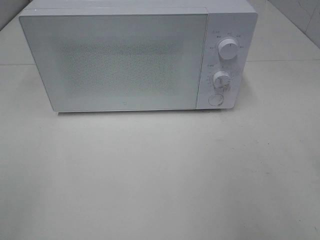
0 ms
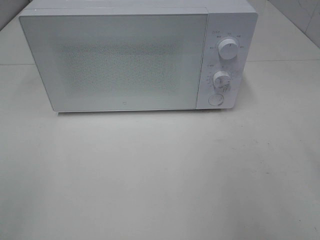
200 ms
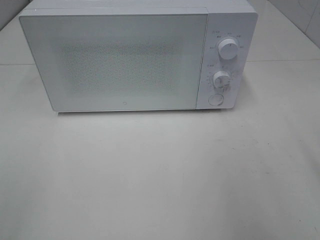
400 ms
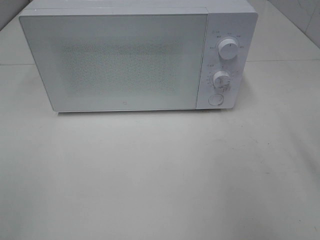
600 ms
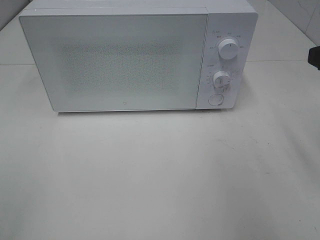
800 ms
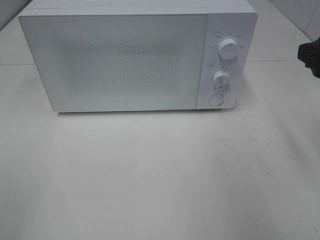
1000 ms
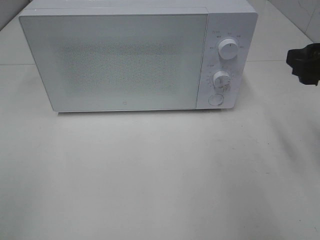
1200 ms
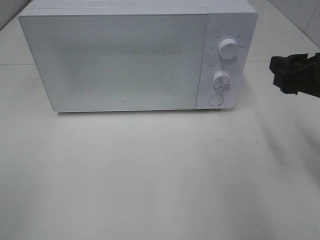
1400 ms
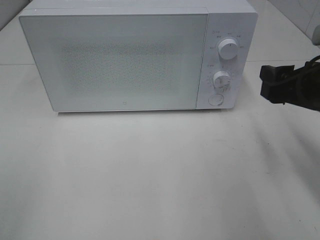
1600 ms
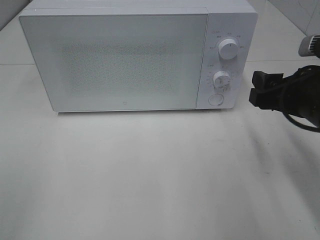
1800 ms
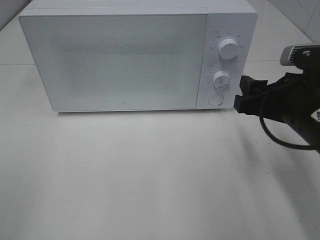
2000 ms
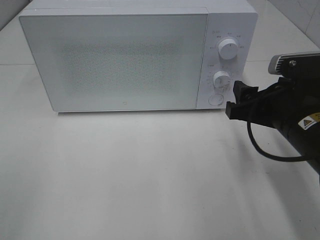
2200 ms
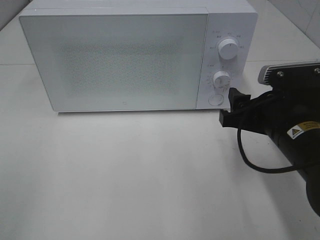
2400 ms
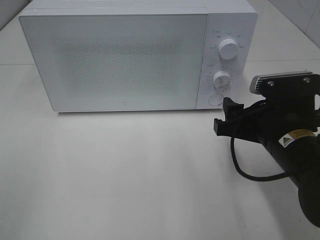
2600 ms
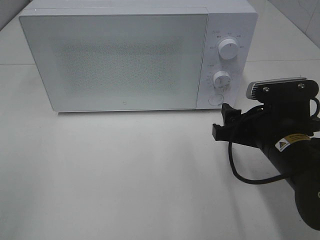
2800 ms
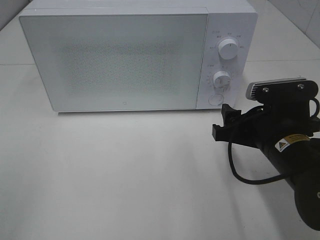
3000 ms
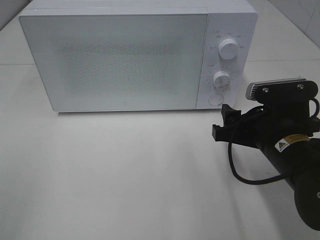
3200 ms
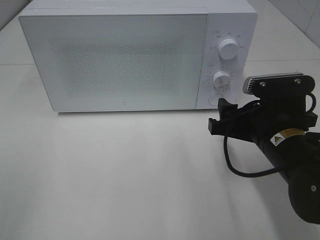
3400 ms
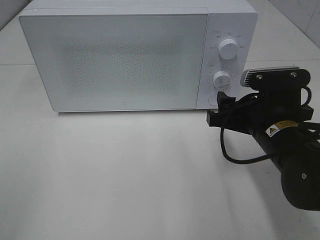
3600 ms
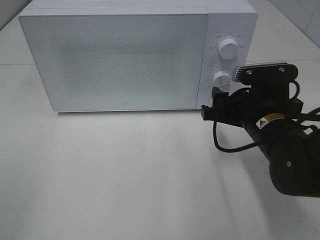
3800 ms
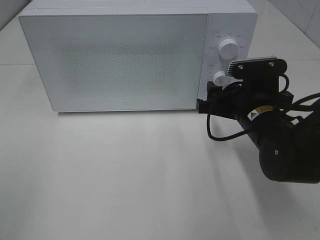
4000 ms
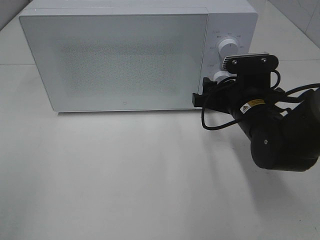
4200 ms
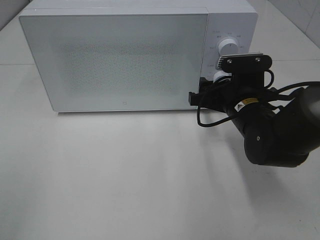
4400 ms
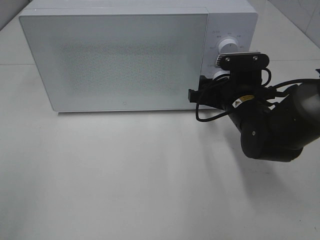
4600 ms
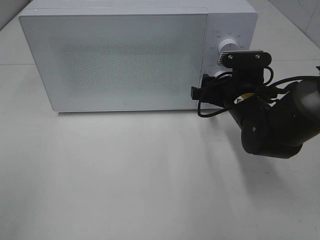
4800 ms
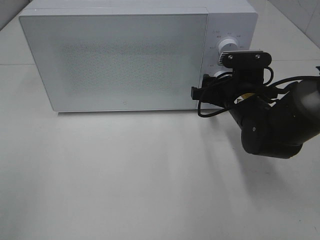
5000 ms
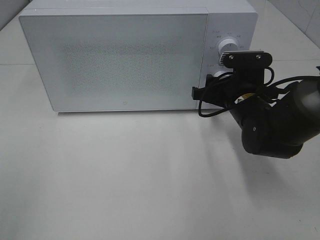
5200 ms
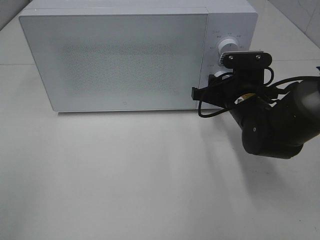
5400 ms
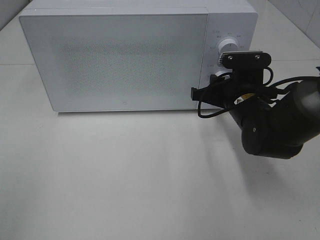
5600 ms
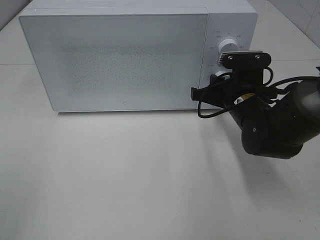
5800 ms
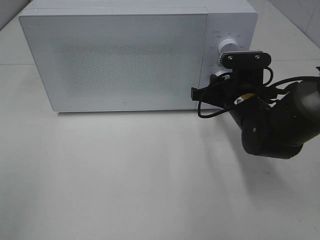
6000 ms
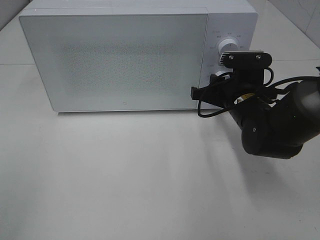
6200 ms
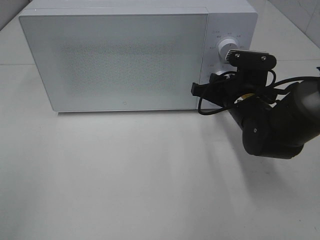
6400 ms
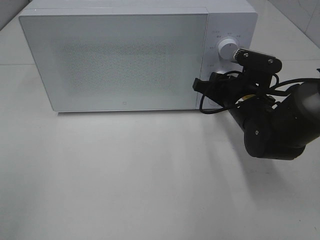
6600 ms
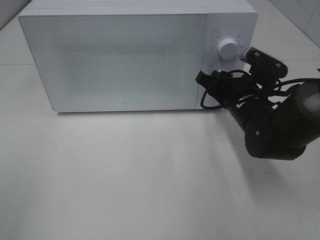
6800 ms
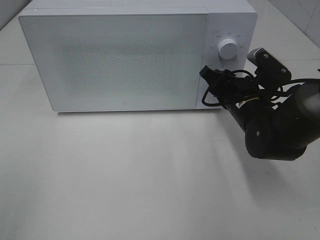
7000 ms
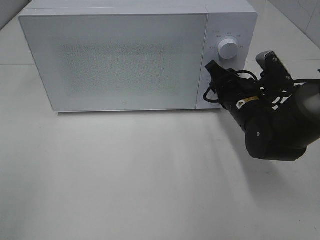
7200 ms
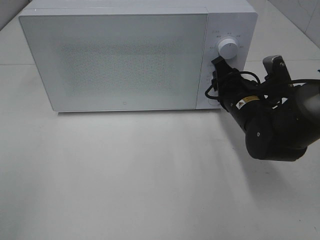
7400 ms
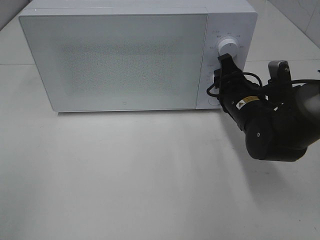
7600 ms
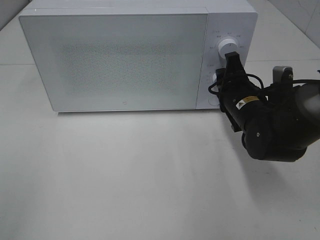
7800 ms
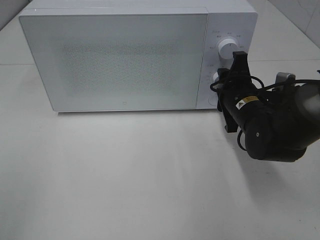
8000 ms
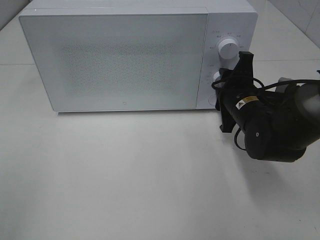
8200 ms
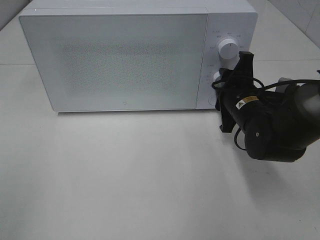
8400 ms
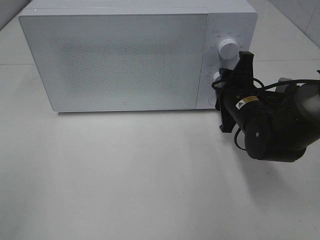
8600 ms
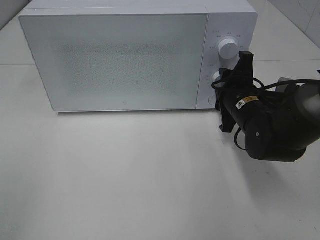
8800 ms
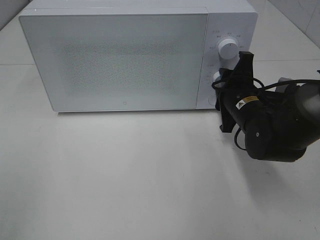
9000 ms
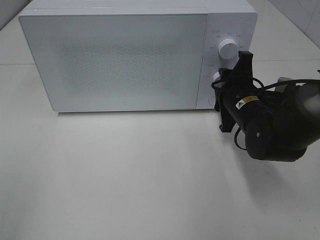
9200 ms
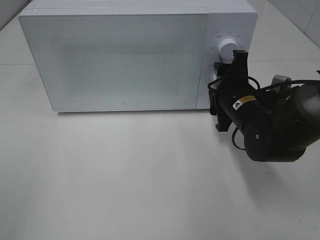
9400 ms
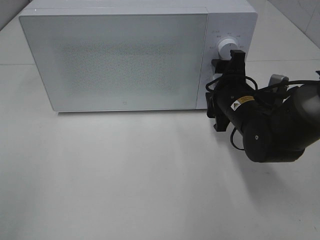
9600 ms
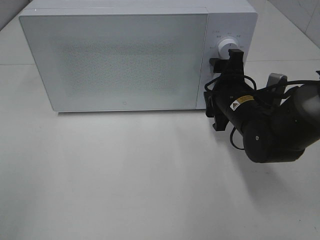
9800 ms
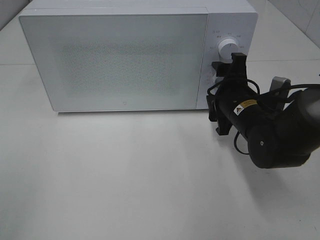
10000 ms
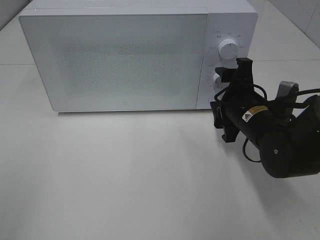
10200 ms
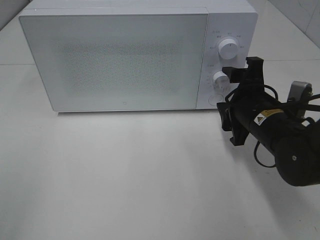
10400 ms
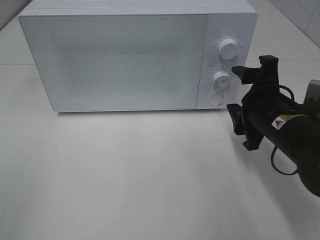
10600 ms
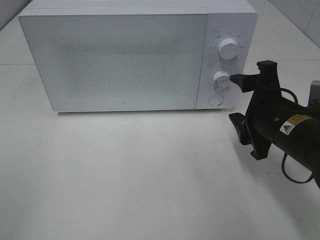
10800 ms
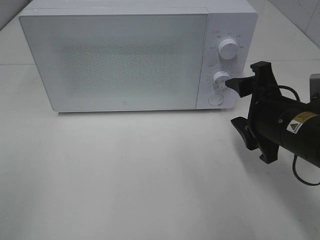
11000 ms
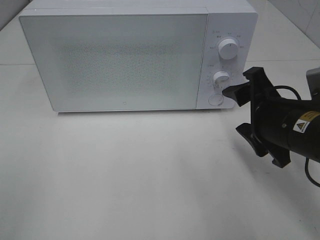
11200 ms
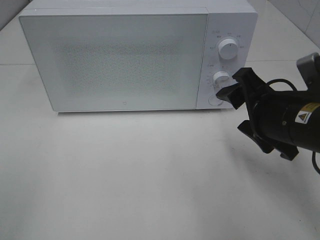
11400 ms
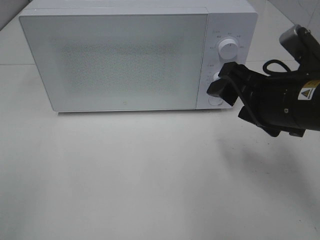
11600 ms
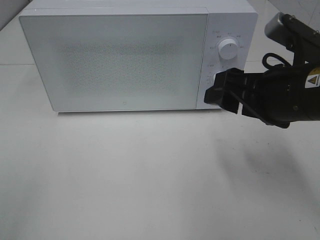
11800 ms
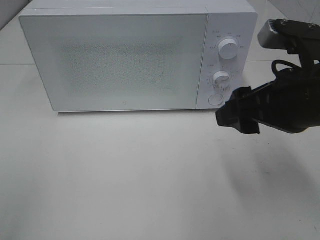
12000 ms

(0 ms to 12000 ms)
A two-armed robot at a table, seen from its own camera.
Task of the whole recording: Heat Sandwich.
Step, 0 ms - 10200 ms: Right hand: twist timer button.
0 ms - 1600 ms: The right gripper heads forward and downward, covering about 15 cm.
1600 ms - 3000 ms: The right gripper is displaced downward and to the left by some 10 cm.
3000 ms - 4400 ms: The right gripper travels forward by roughly 10 cm.
4400 ms - 6000 ms: The grippers stay close to where they were, moving slightly.
9000 ms - 10400 ms: The right gripper shifts by roughly 5 cm.
10400 ms - 12000 ms: The right gripper heads upward and backward, covering about 15 cm.

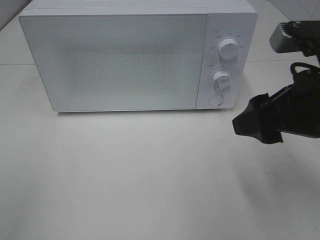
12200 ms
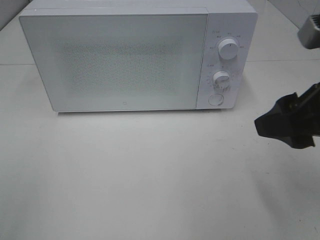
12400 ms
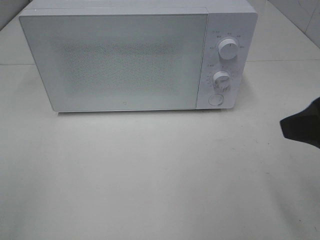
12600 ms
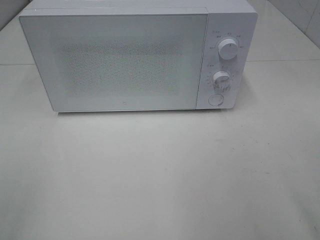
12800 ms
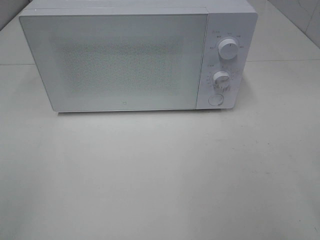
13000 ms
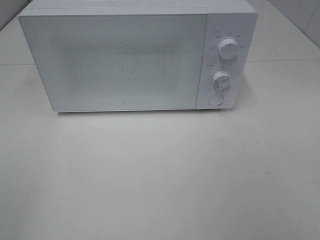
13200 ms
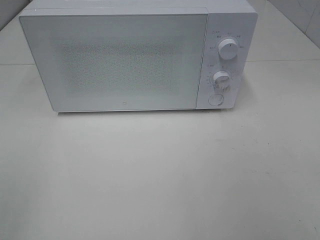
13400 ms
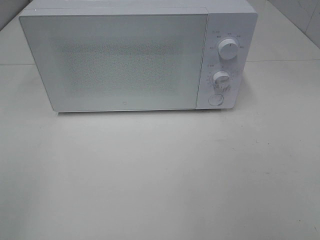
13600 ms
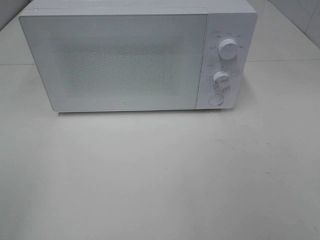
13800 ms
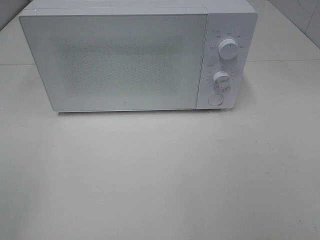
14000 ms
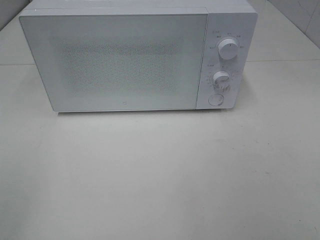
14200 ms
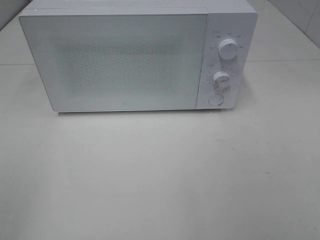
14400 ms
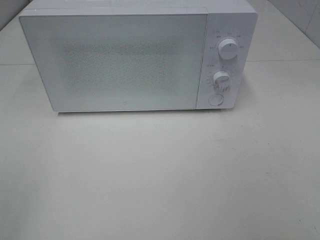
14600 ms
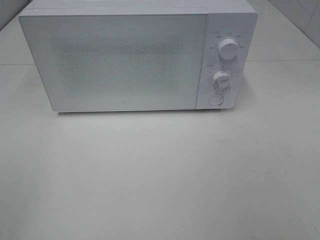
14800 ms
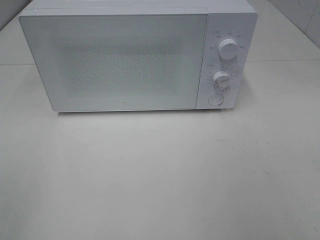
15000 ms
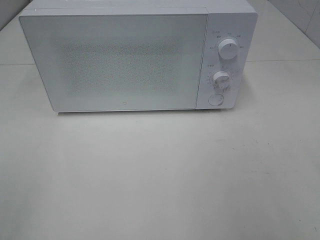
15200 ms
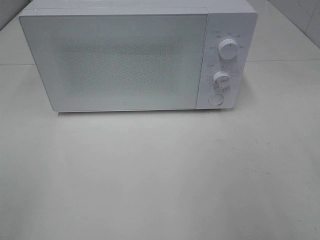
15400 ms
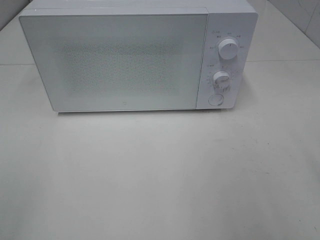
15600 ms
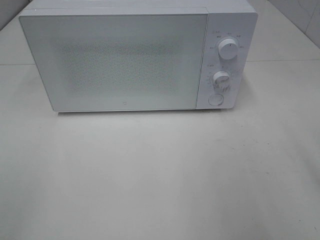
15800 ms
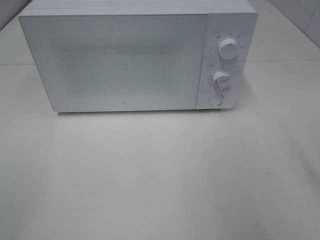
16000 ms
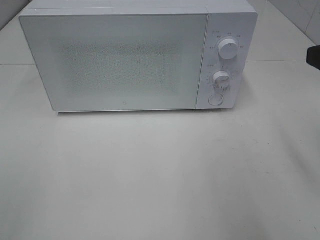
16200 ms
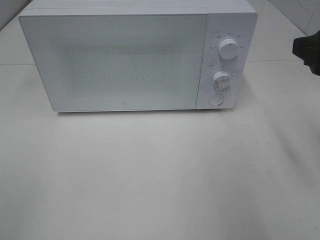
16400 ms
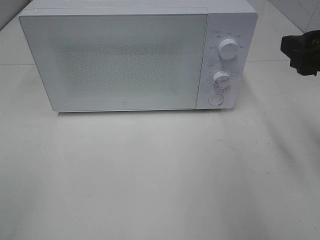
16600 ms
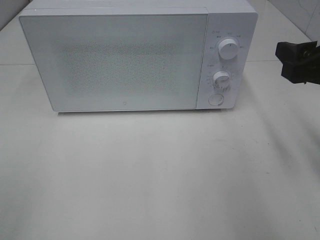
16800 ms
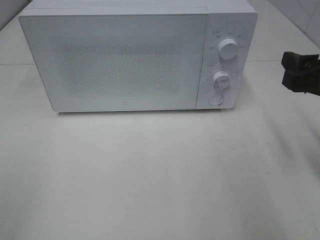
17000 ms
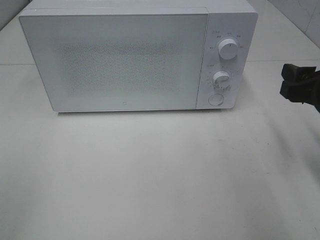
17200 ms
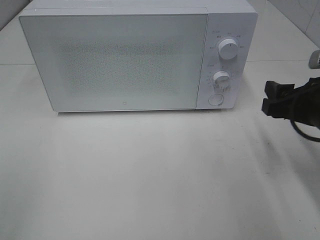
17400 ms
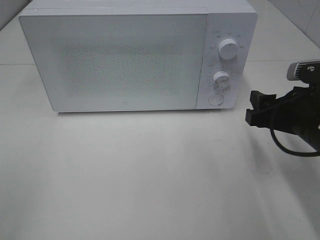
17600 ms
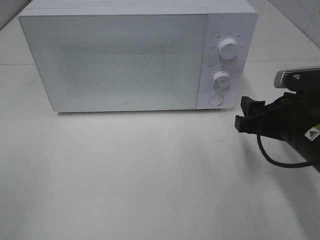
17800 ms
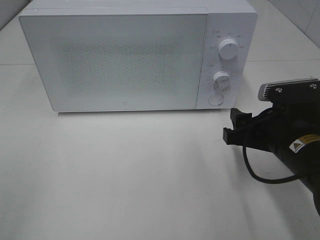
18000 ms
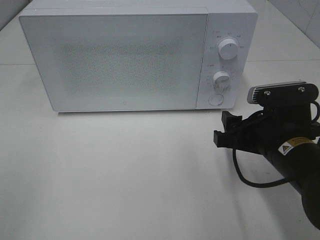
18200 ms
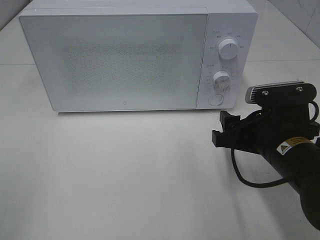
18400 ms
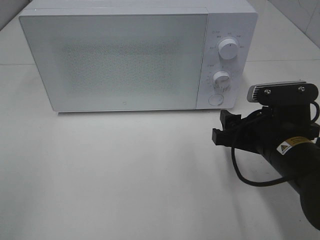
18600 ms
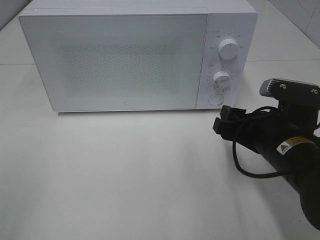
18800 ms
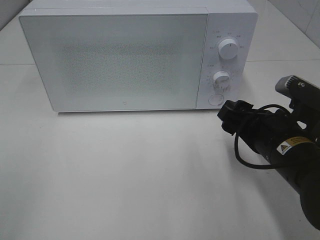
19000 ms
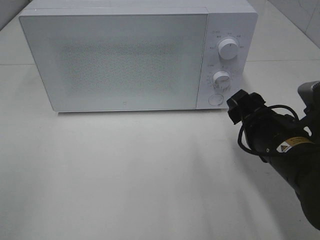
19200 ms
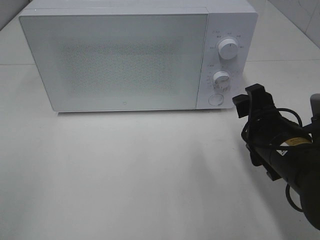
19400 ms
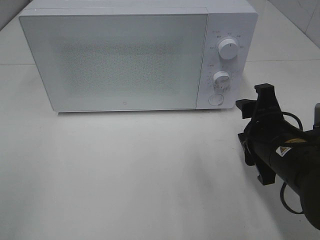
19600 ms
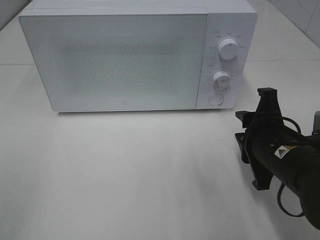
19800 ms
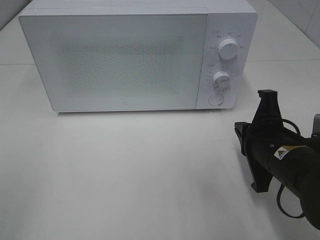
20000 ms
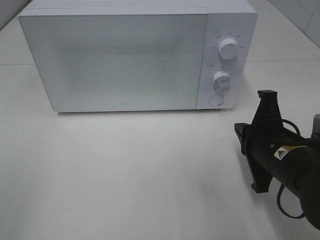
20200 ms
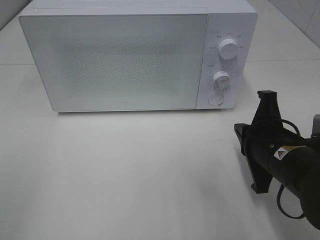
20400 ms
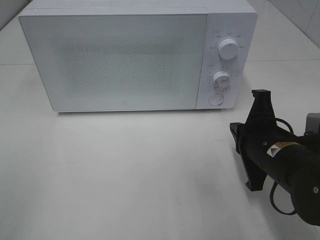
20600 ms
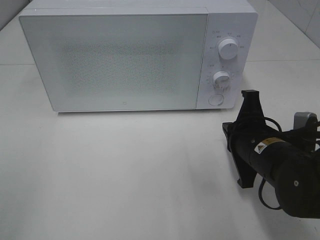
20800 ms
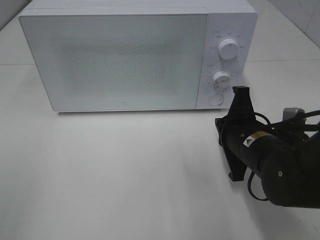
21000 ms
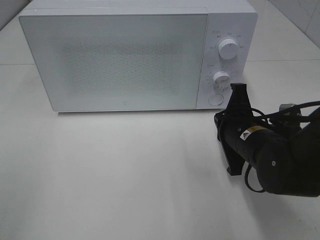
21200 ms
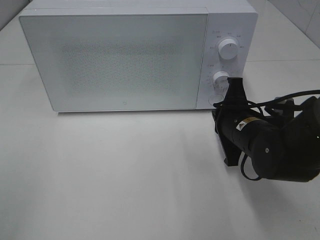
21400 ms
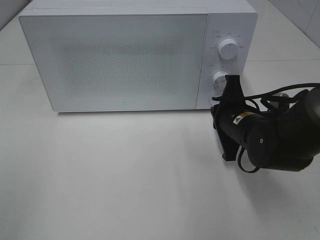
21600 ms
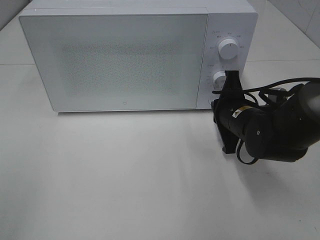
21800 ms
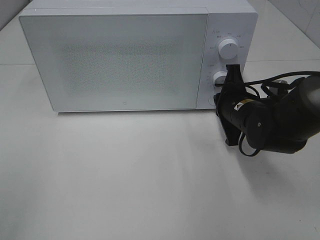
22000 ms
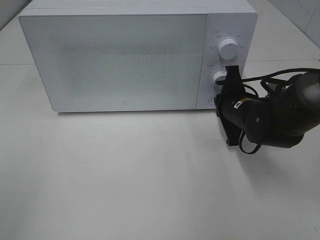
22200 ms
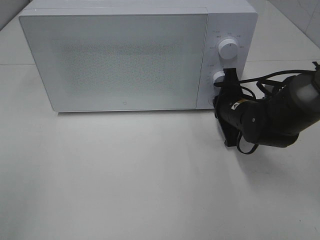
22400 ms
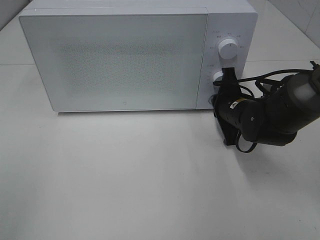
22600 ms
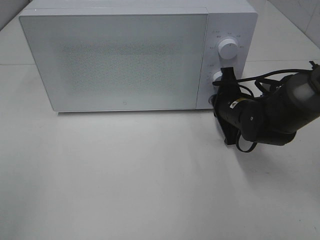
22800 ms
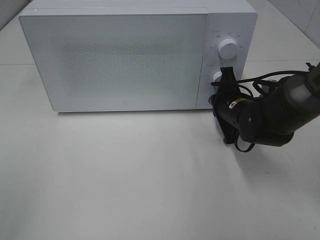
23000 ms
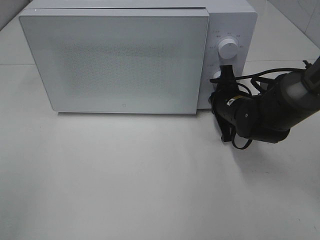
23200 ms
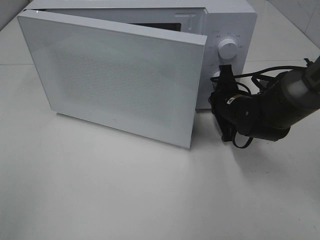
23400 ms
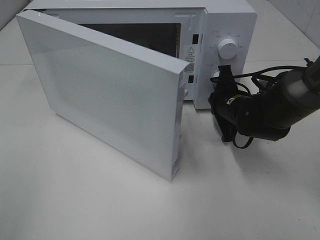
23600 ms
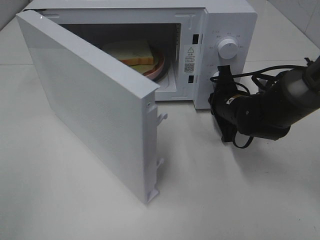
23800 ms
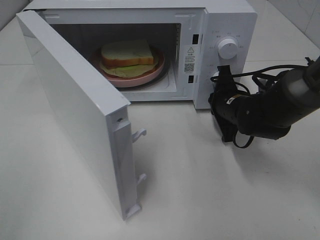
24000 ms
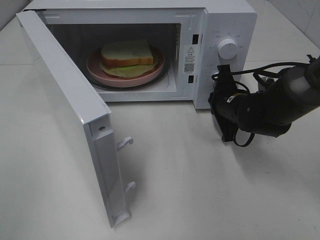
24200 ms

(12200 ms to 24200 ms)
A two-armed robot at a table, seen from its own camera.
Task of the whole recording: Heat Sandwich.
12200 ms - 13800 ms: The right gripper travels backward and to the right by about 20 cm.
15200 ms - 16600 ms: The right gripper goes approximately 15 cm forward.
16600 ms - 18200 ms: The right gripper travels downward and to the left by roughly 15 cm.
19800 ms - 21200 ms: The right gripper shifts by roughly 5 cm, and closes.
21200 ms - 22600 ms: The right gripper heads forward, covering some 10 cm.
